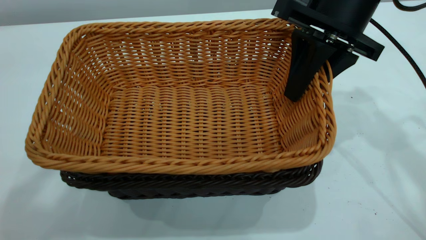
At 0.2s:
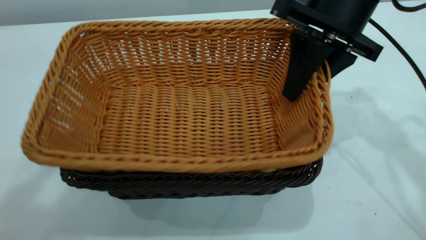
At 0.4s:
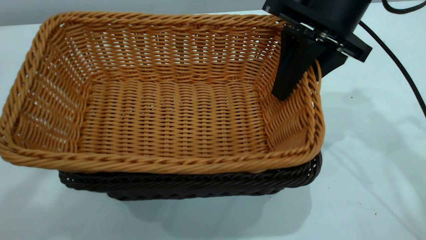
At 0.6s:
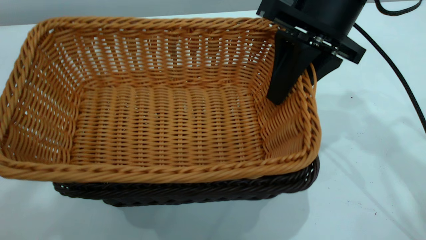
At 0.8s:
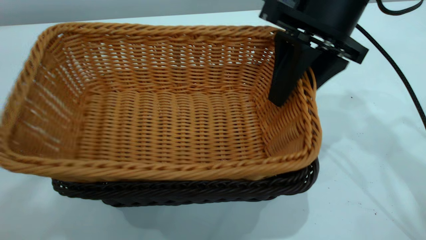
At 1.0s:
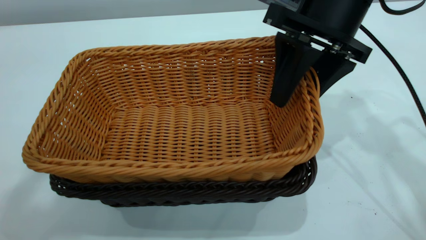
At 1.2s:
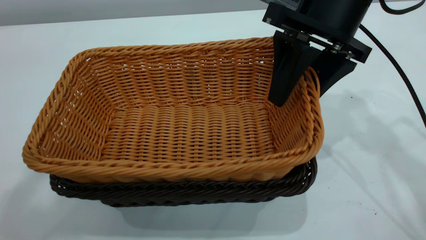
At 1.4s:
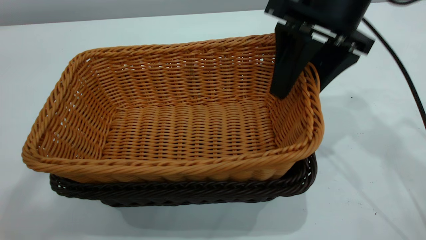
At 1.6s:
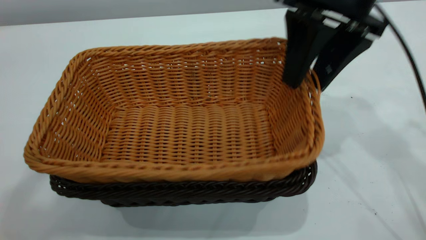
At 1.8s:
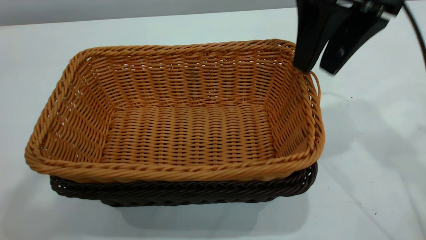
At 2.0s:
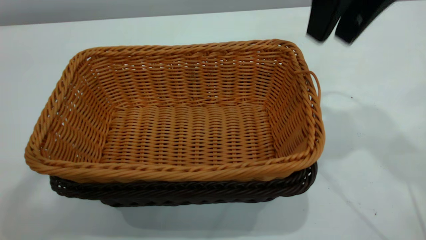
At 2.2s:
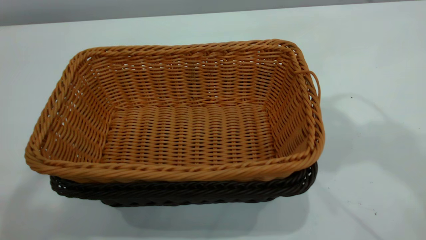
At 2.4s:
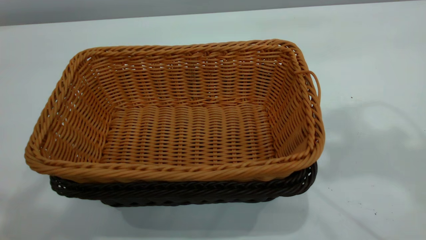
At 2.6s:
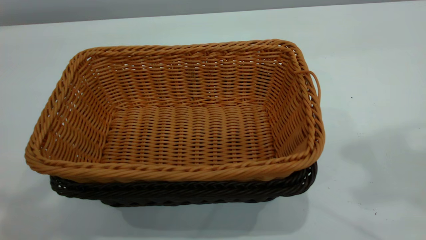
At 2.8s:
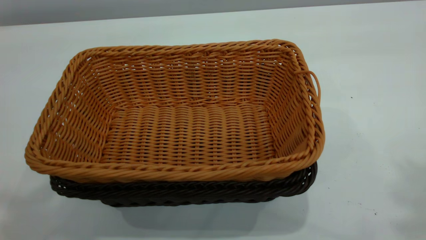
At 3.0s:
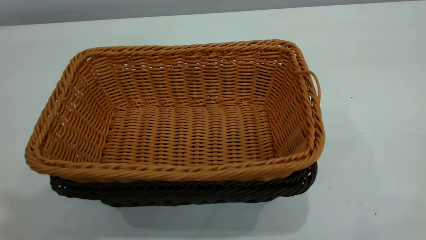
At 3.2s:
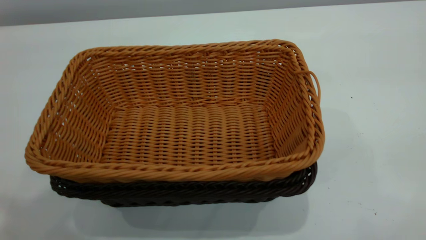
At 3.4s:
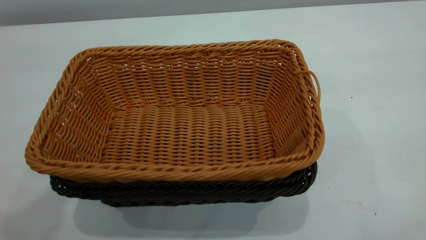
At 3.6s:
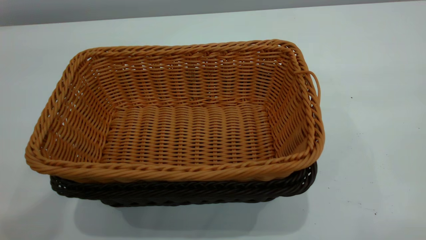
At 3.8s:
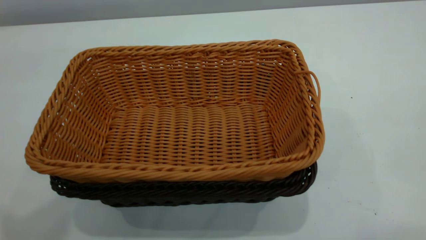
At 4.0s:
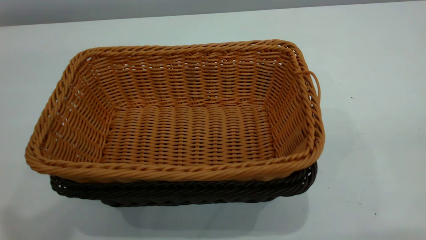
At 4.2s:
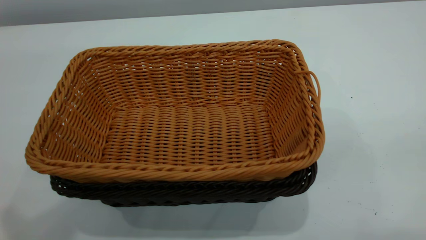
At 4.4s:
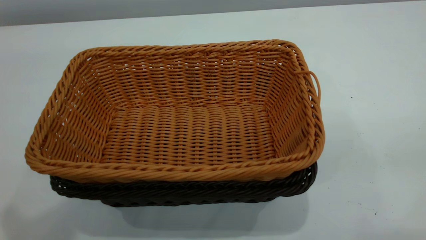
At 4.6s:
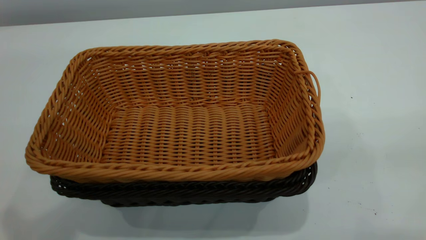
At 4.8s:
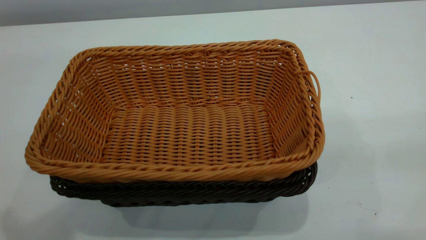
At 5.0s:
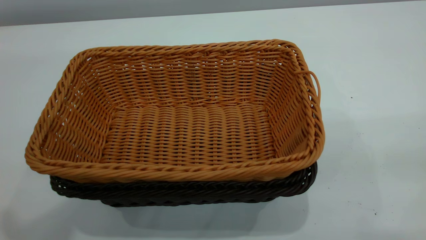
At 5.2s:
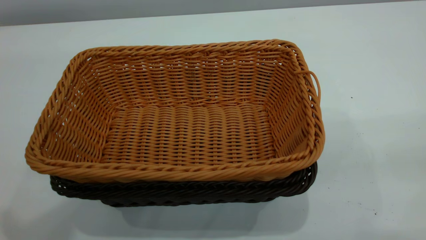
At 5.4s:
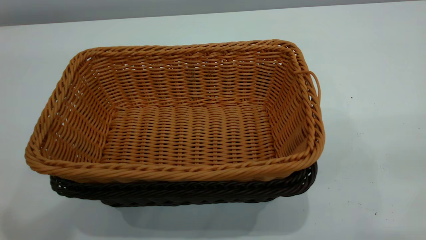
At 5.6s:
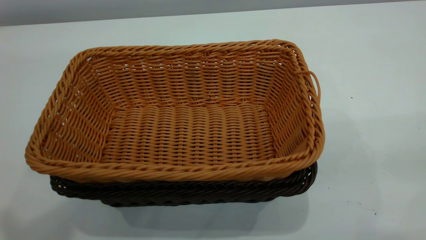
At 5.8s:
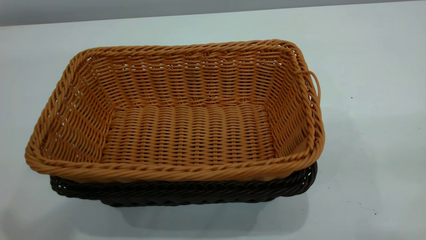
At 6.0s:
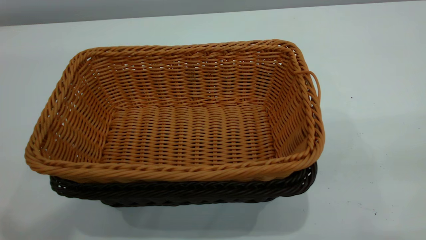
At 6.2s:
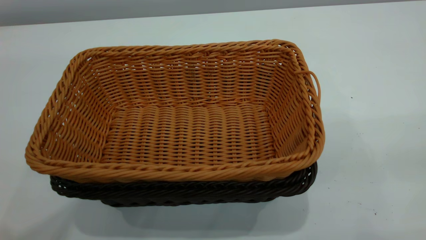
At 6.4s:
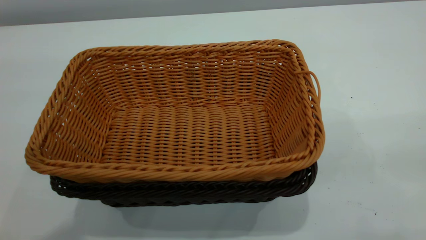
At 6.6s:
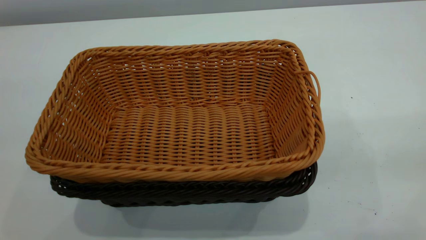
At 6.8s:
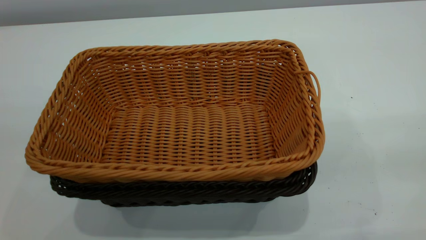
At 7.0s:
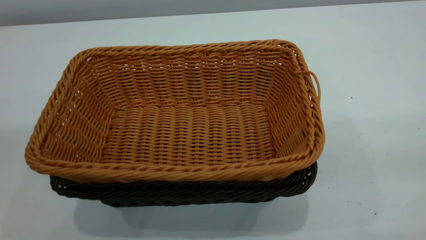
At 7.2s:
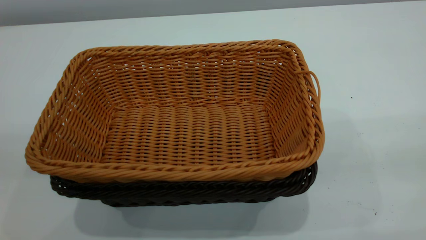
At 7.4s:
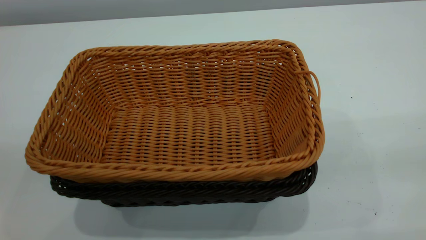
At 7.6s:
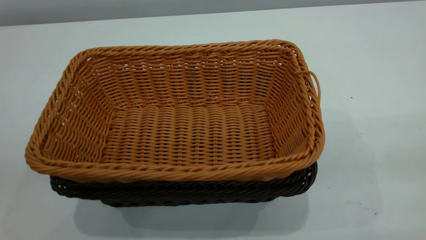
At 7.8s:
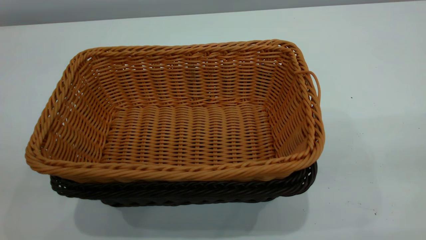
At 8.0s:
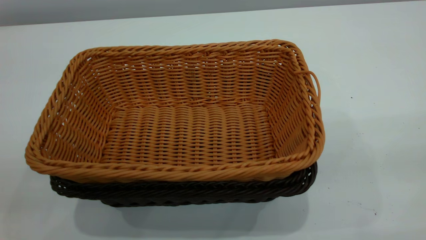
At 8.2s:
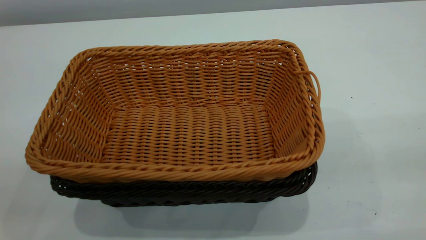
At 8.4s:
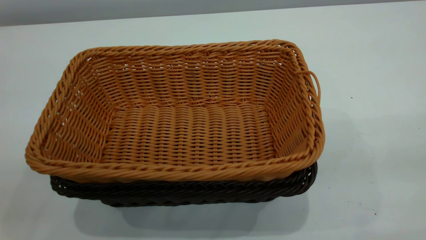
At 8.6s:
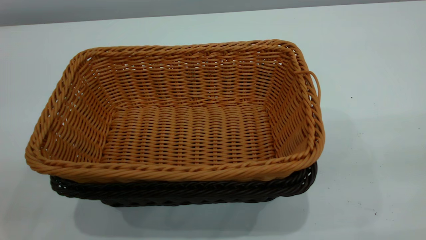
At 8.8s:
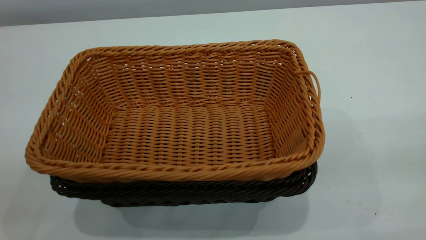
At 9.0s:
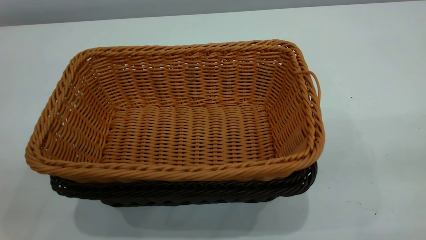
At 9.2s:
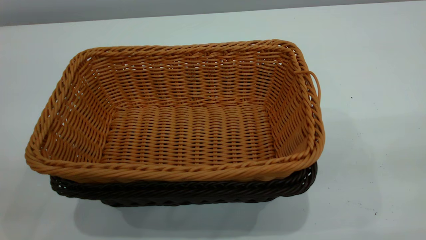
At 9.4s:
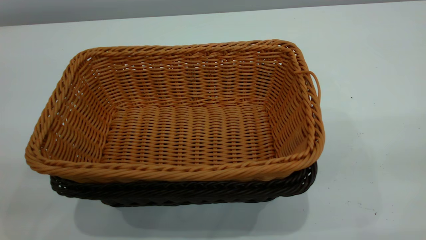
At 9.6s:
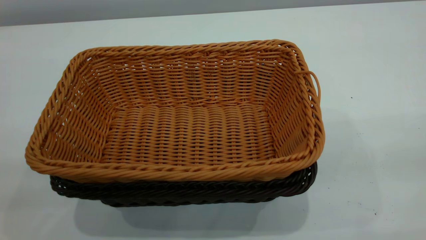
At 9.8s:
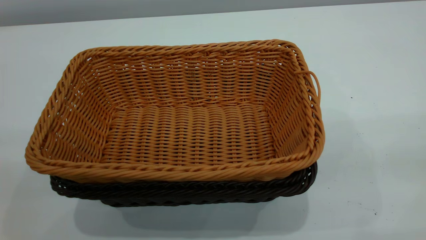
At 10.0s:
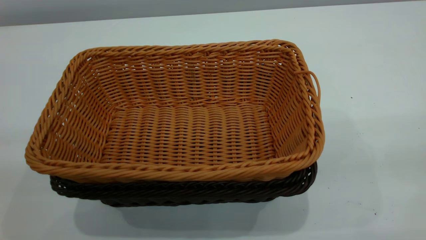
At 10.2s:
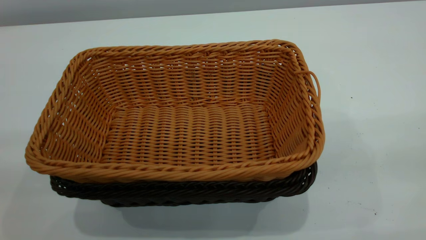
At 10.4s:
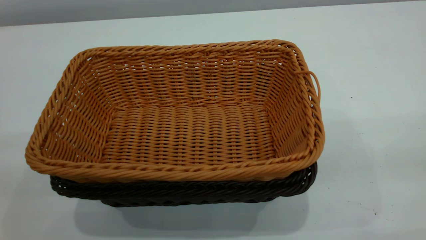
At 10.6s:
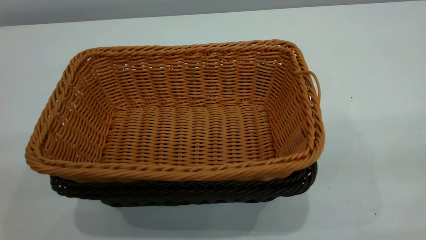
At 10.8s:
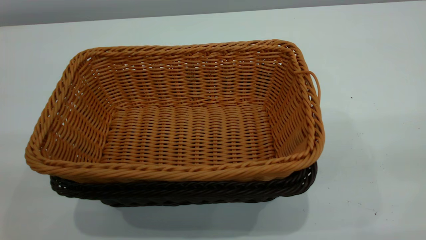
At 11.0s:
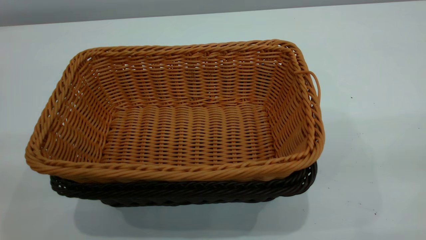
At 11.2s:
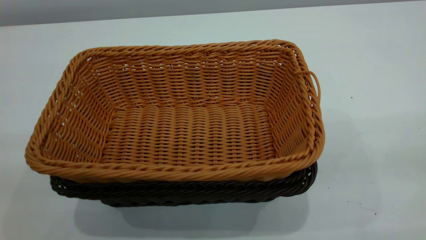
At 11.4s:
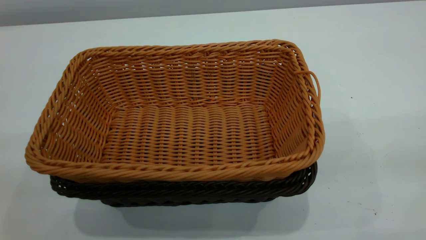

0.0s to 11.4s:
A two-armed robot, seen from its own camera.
Task of the whole recording: the left gripper grasp the black basket and place it in the center of the table, the right gripper grasp the brown basket and place it inside the black one.
0.0s to 1.4s: The right gripper opens.
1.4s to 2.8s: The left gripper closes up. Meanwhile the right gripper shifts some 35 cm upward and backward, and closes.
10.0s to 11.4s: Both grippers stay put.
